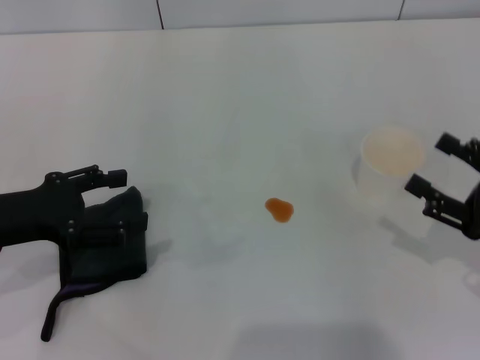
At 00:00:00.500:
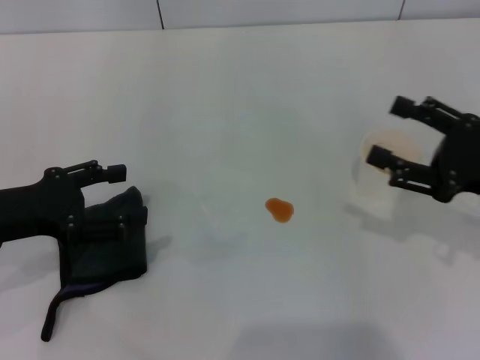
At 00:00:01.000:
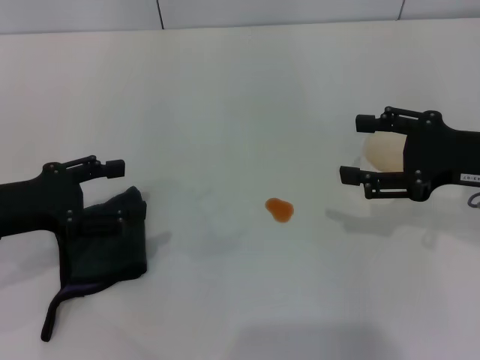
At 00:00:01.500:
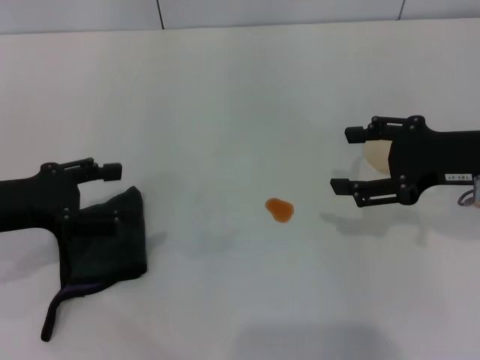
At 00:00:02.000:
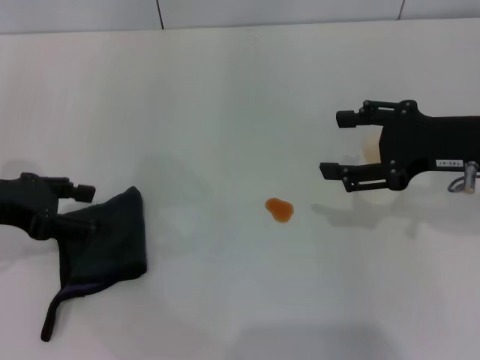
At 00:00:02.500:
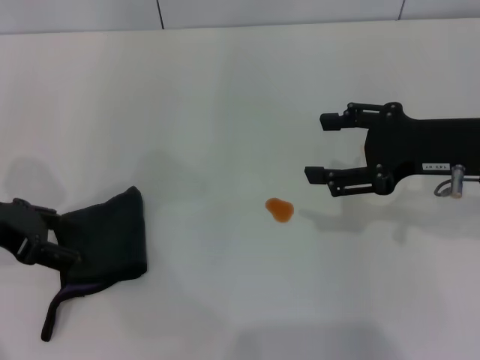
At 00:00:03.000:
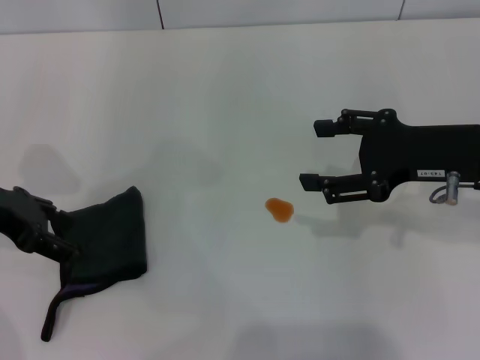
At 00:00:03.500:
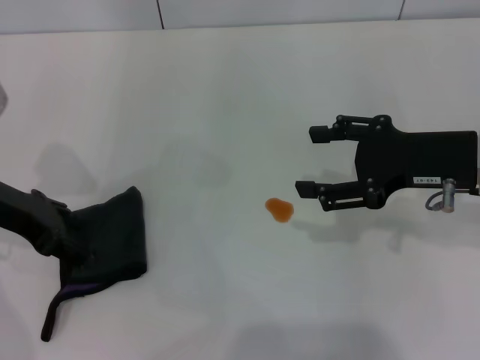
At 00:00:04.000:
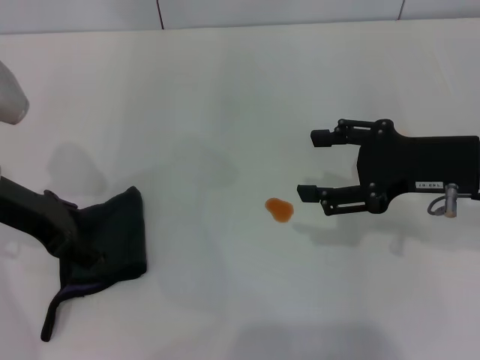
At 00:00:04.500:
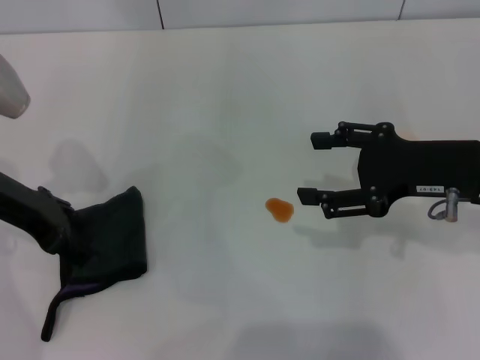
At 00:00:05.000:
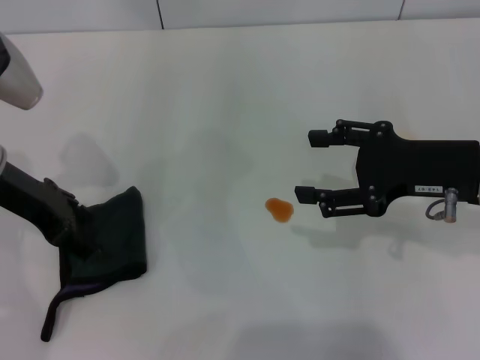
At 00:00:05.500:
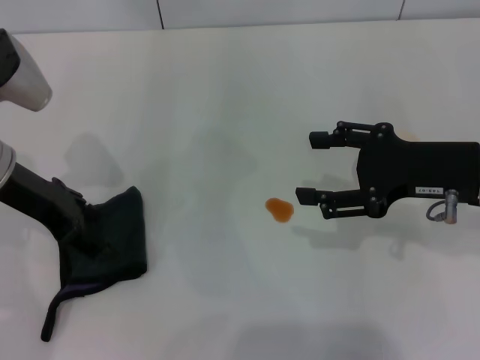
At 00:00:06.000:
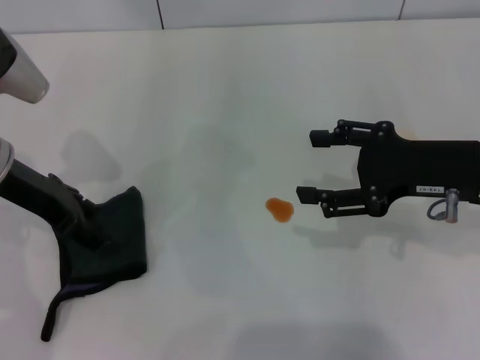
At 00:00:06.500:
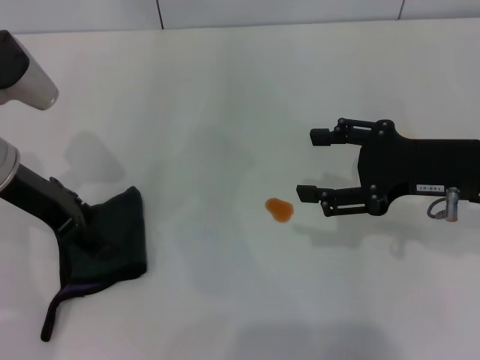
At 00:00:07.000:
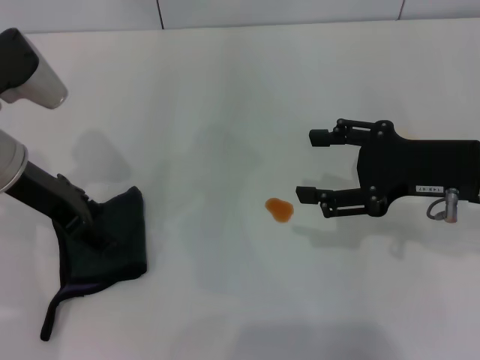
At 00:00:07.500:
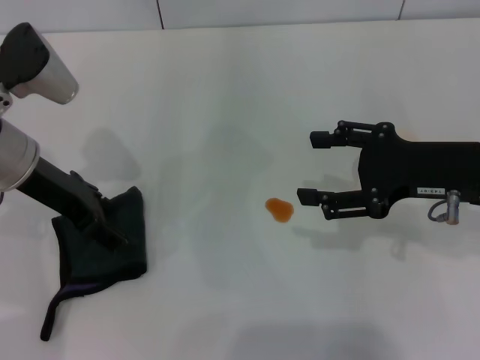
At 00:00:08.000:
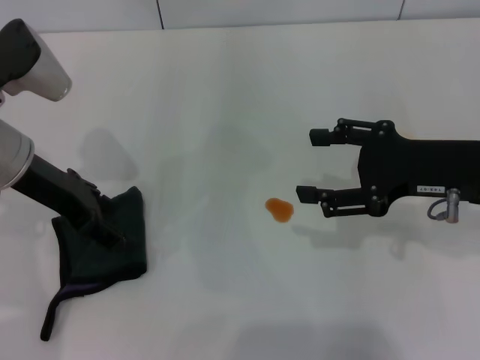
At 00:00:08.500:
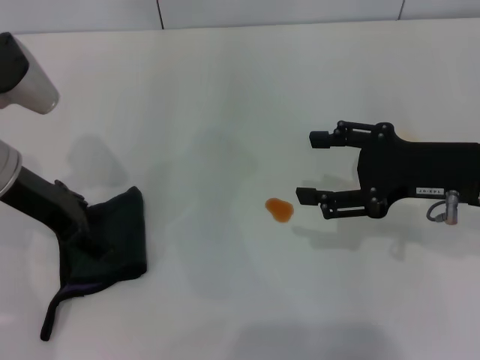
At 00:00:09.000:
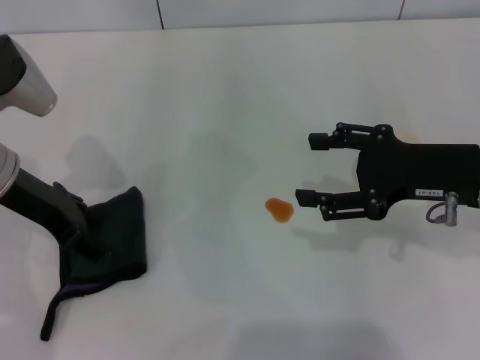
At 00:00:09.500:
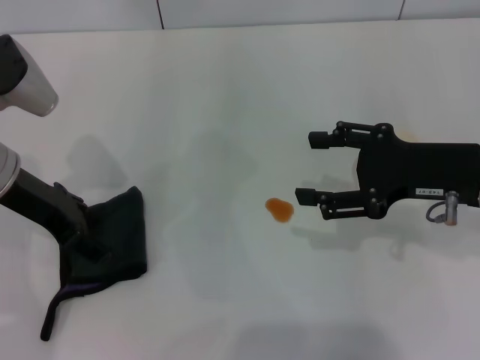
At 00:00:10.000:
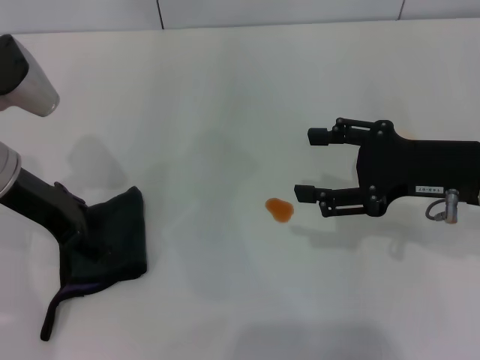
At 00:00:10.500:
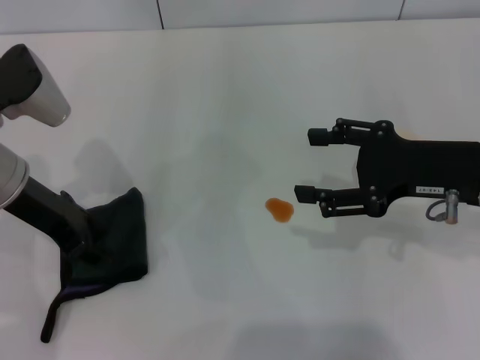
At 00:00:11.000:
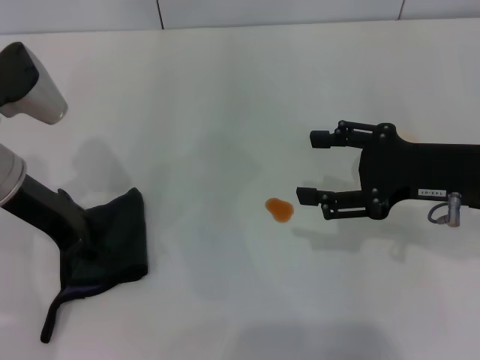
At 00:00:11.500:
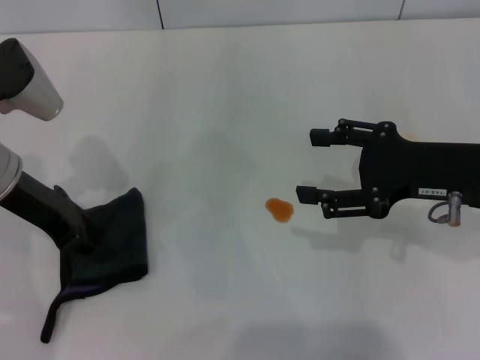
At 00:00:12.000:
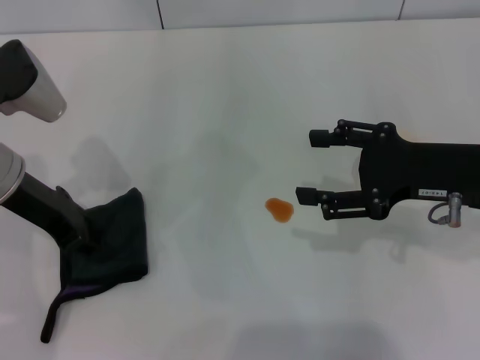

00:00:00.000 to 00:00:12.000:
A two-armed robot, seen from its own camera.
00:00:00.000 to 00:00:02.000: The right gripper travels upward, forward and to the left by roughly 15 cm.
00:00:02.000 to 00:00:04.000: The left gripper ends up about 5 cm from where it was.
00:00:04.000 to 00:00:10.000: There are only small adjustments of the grippers.
00:00:10.000 to 00:00:12.000: The left gripper closes.

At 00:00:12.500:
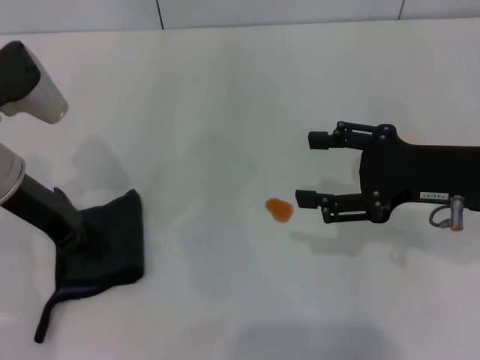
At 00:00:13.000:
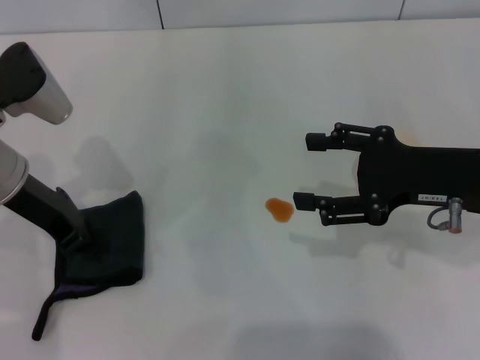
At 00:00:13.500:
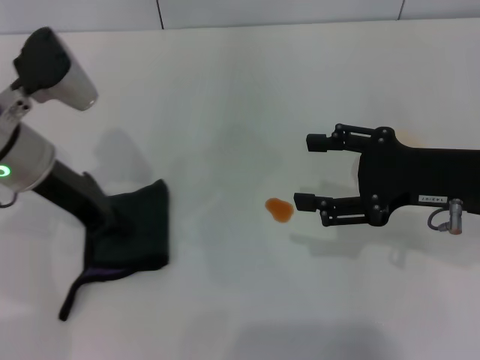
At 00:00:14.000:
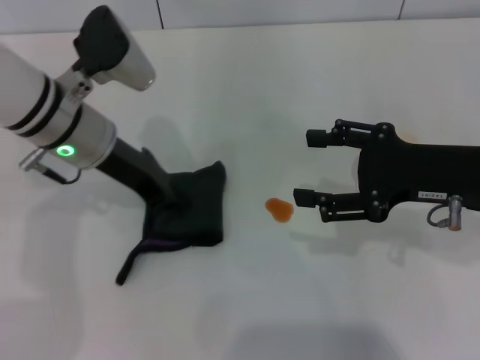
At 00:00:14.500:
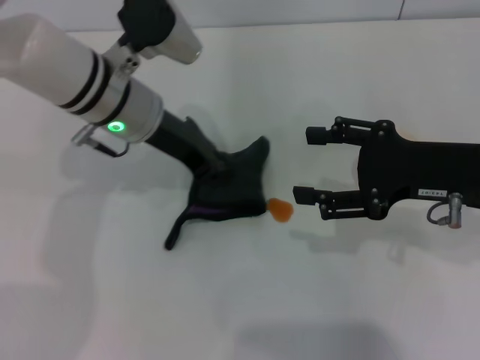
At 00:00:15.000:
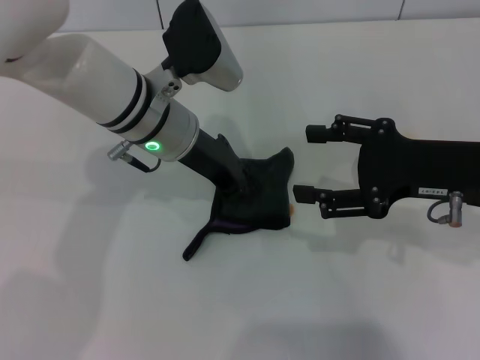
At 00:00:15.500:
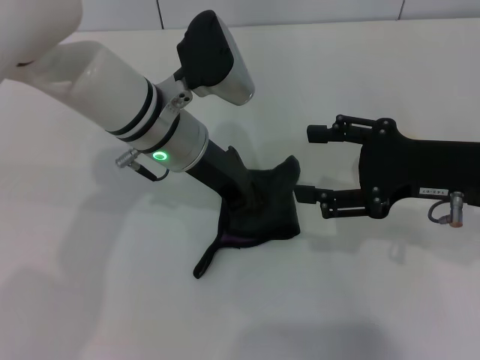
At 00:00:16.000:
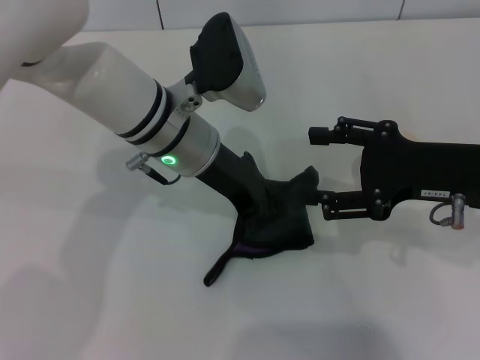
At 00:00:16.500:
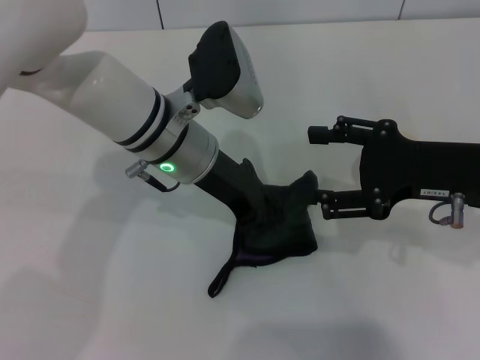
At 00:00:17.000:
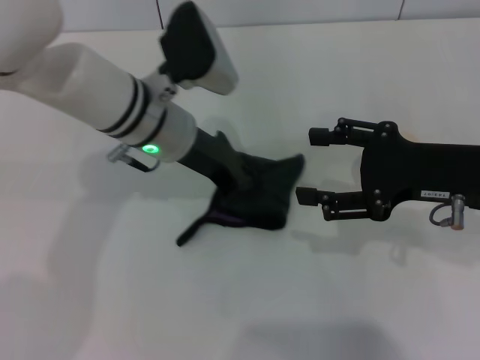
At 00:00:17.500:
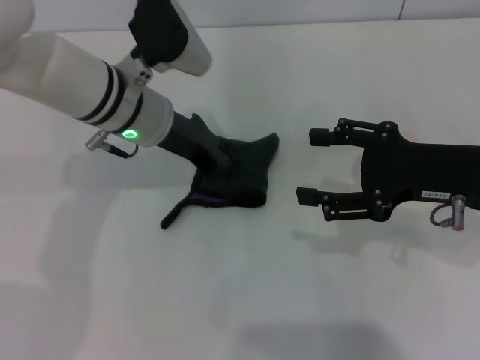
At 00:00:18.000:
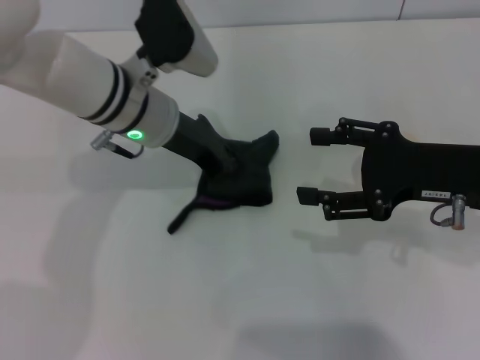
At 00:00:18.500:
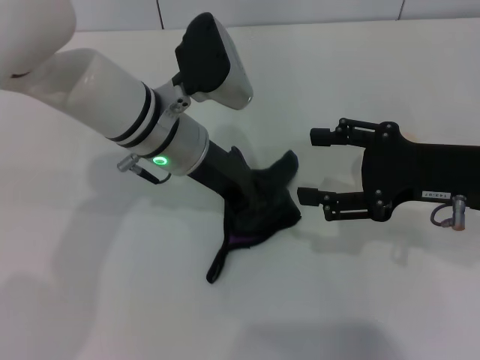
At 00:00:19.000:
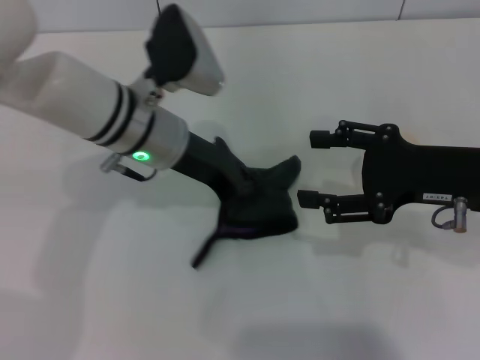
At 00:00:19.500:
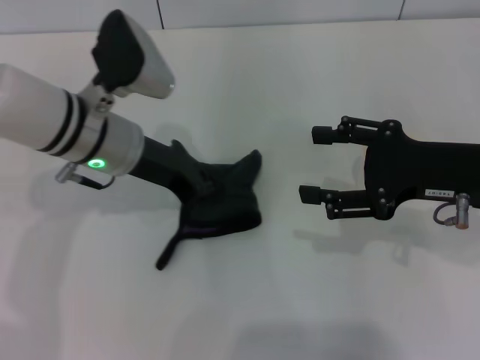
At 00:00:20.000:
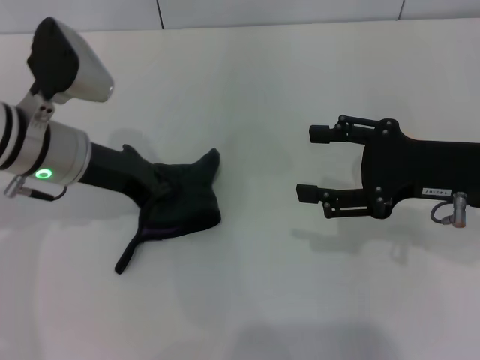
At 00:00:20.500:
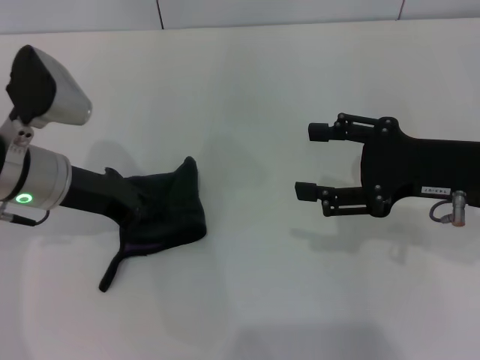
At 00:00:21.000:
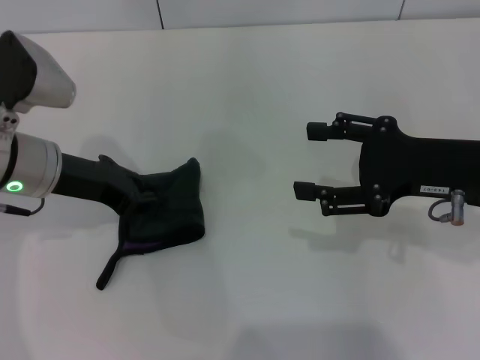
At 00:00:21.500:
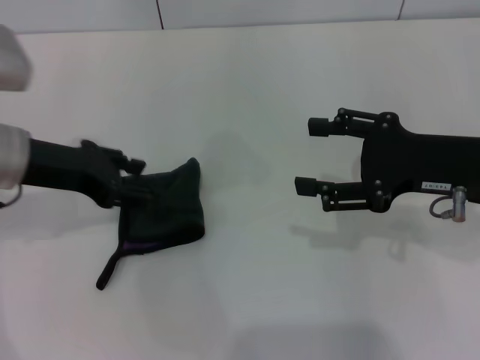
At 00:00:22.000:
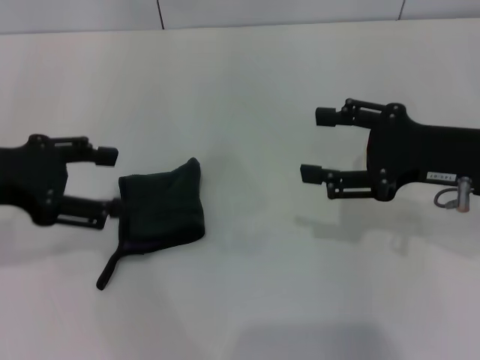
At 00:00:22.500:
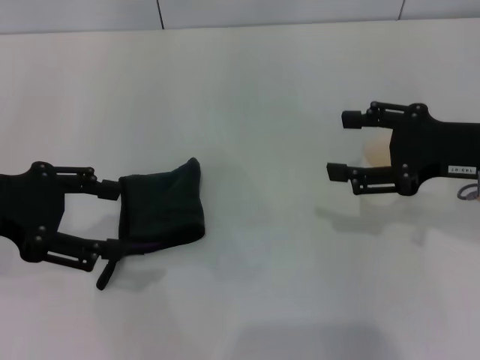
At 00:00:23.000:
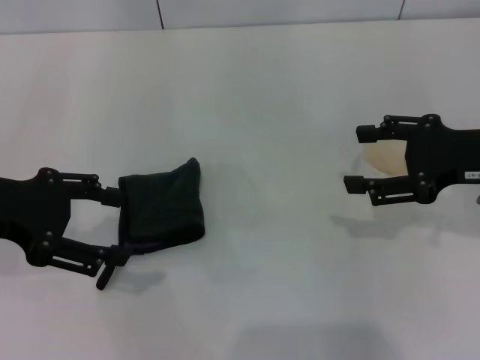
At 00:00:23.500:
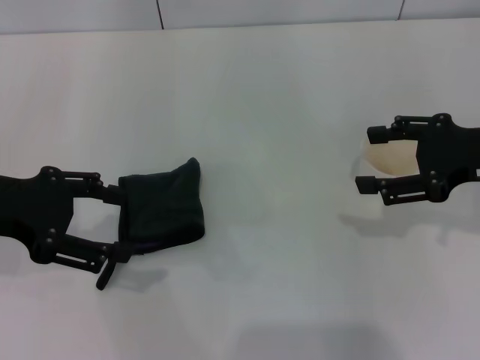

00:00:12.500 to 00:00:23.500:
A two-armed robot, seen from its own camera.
Step, 00:00:13.500 to 00:00:20.500: Wipe the stains off the table with the left gripper.
Step, 00:00:21.000 to 00:00:21.500: Place the rag on the table with the left gripper.
00:00:12.500 to 00:00:14.500: The left gripper goes some 10 cm to the right.
00:00:14.500 to 00:00:16.000: The left gripper changes place by about 5 cm.
00:00:16.000 to 00:00:18.000: The grippers move only a little.
00:00:18.000 to 00:00:20.000: The left gripper goes some 10 cm to the left.
00:00:20.000 to 00:00:21.500: The left gripper shifts by about 5 cm, and opens.
00:00:21.500 to 00:00:23.500: The left gripper goes roughly 5 cm backward, and opens; the right gripper moves about 5 cm.
